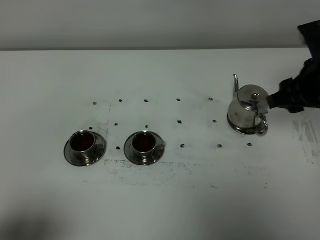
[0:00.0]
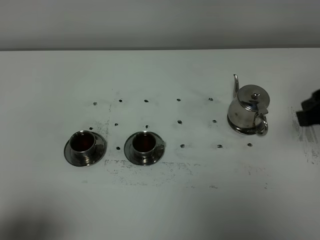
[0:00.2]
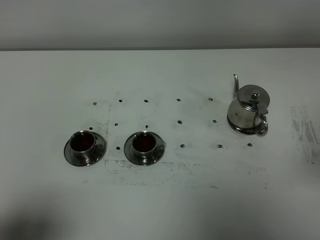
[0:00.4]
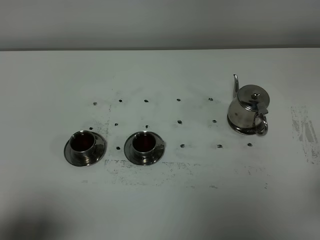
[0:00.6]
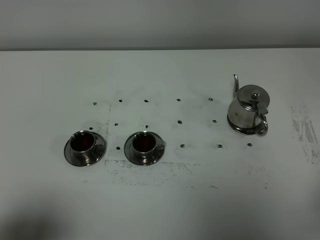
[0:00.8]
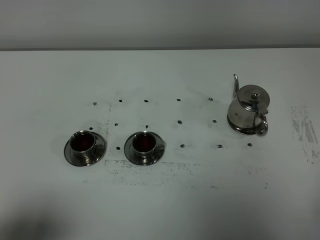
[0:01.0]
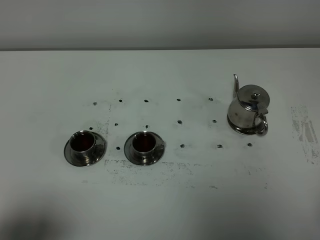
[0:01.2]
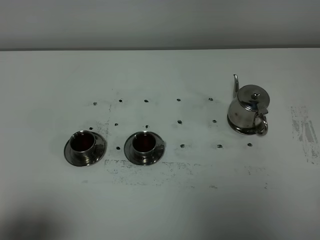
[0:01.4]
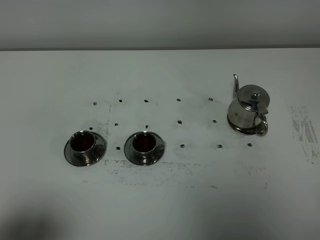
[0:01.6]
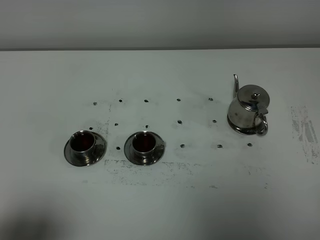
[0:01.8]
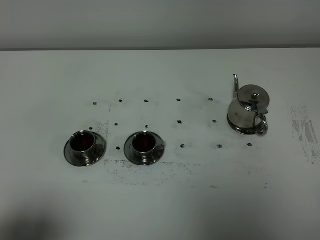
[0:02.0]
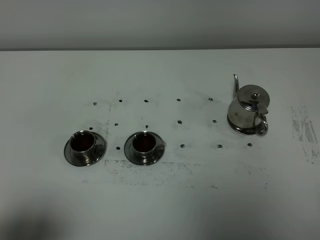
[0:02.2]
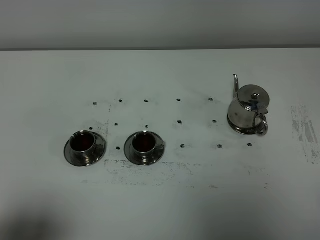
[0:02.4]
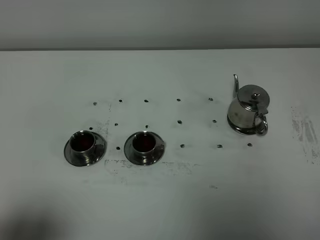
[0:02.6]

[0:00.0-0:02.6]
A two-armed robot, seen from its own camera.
Task of the whole recording: grasp the stainless steel teapot and pour the tea into the two stainless steel teacups one by one, put the stainless steel teapot back in its original place.
0:00.0 to 0:01.2: The right gripper moves backward, roughly 25 cm, and closes.

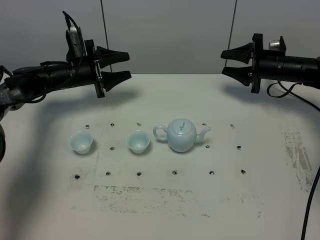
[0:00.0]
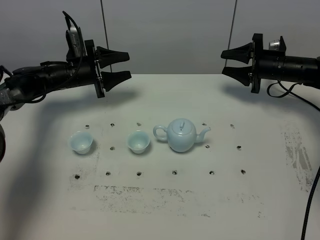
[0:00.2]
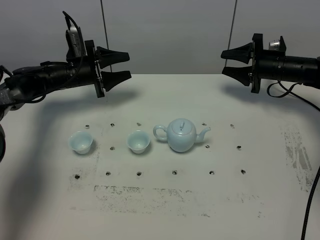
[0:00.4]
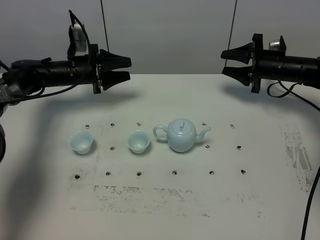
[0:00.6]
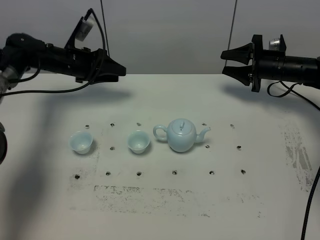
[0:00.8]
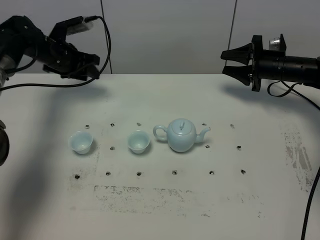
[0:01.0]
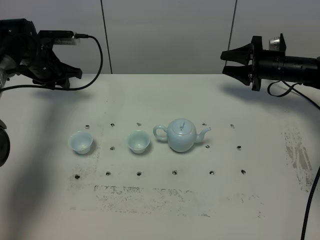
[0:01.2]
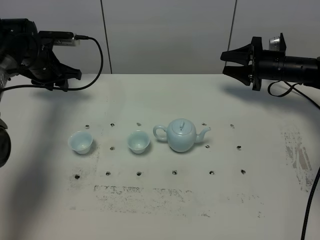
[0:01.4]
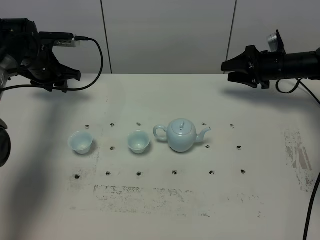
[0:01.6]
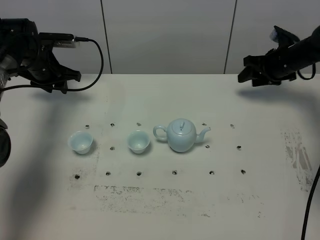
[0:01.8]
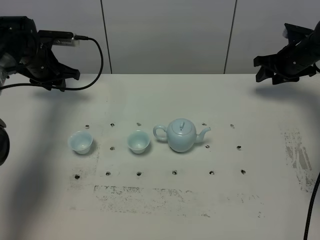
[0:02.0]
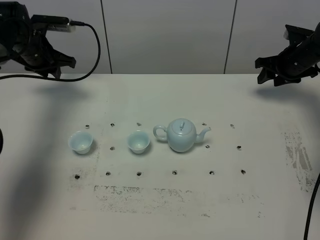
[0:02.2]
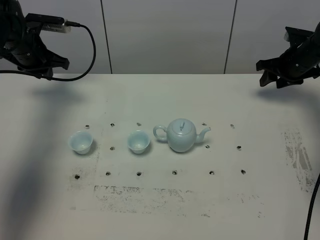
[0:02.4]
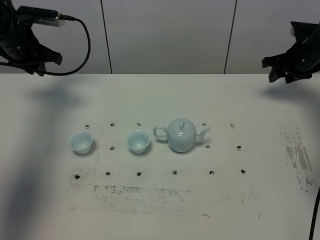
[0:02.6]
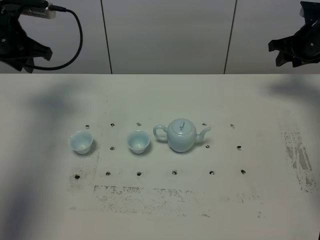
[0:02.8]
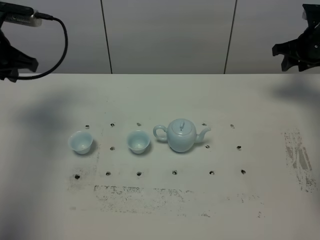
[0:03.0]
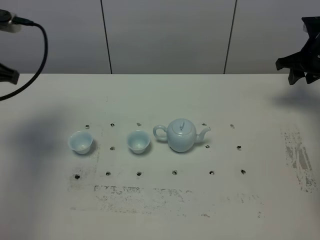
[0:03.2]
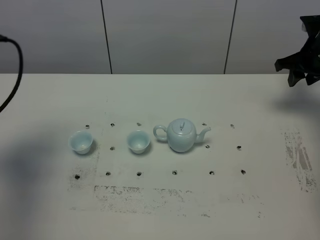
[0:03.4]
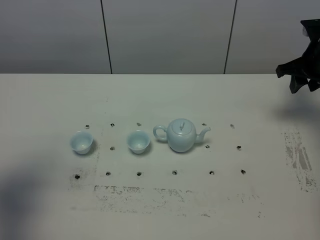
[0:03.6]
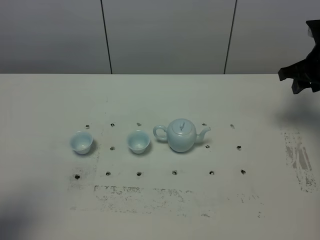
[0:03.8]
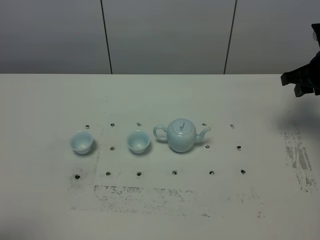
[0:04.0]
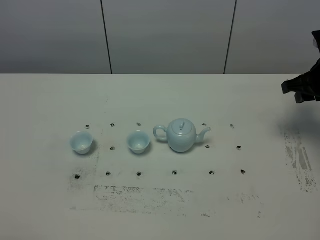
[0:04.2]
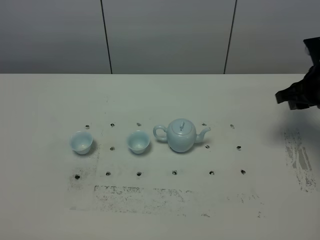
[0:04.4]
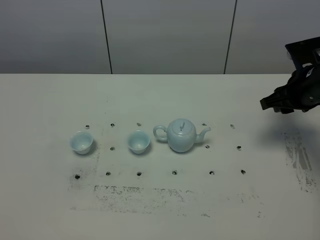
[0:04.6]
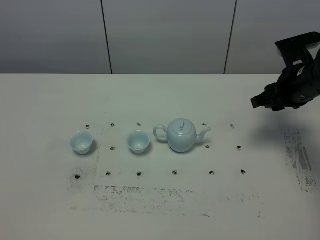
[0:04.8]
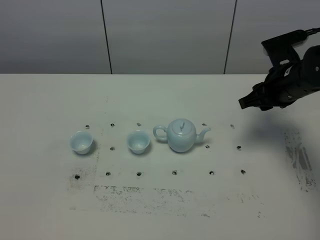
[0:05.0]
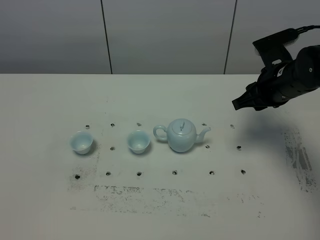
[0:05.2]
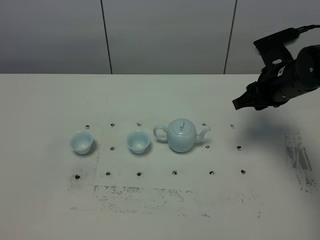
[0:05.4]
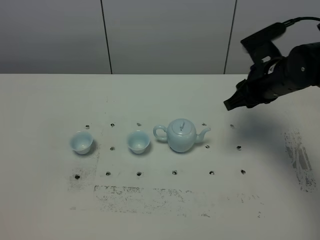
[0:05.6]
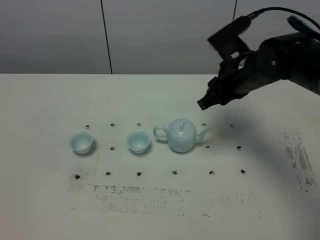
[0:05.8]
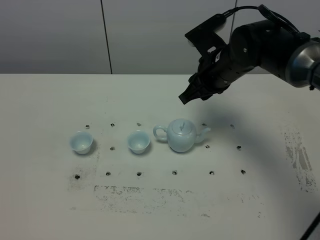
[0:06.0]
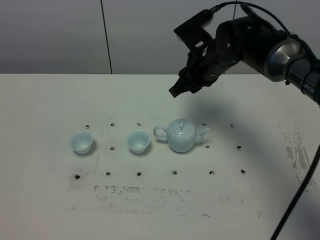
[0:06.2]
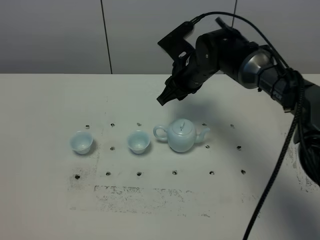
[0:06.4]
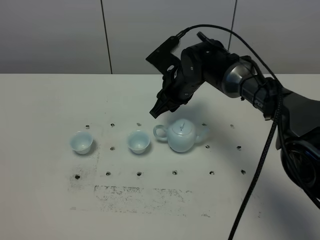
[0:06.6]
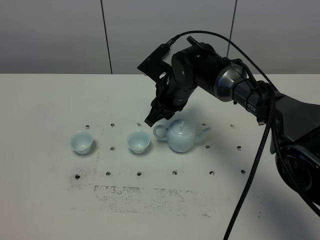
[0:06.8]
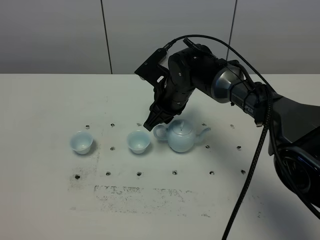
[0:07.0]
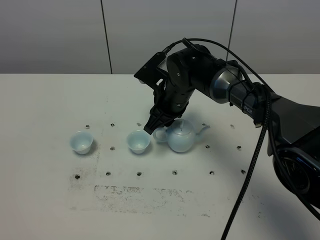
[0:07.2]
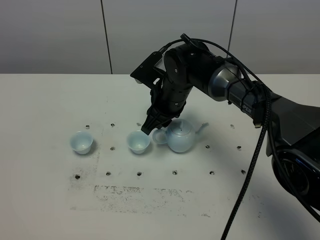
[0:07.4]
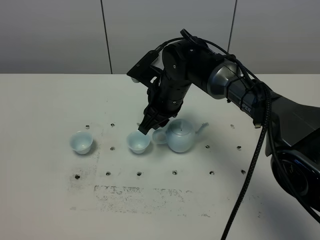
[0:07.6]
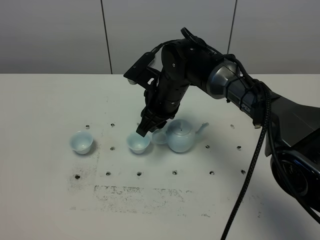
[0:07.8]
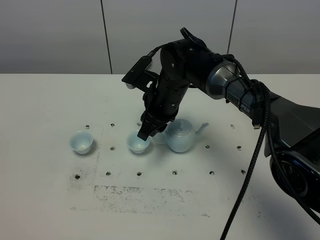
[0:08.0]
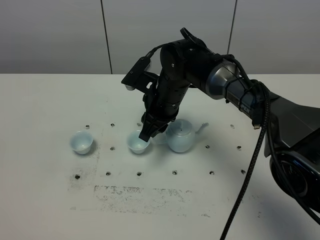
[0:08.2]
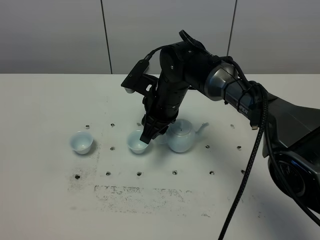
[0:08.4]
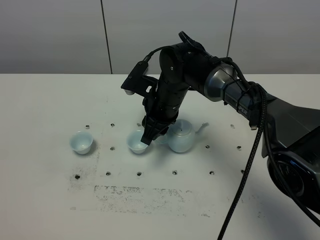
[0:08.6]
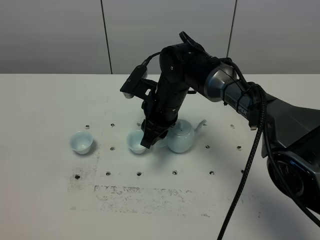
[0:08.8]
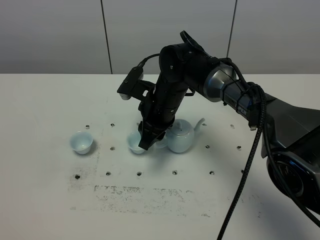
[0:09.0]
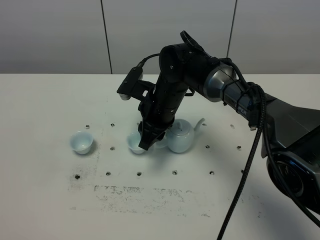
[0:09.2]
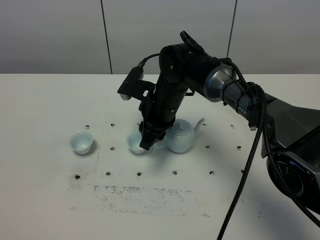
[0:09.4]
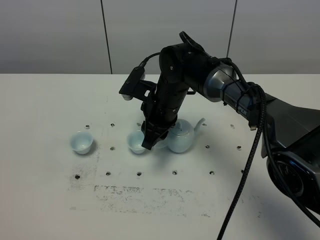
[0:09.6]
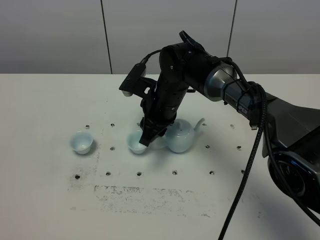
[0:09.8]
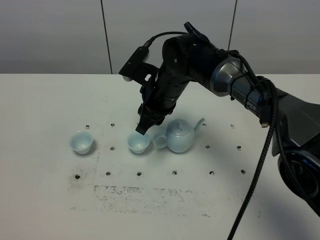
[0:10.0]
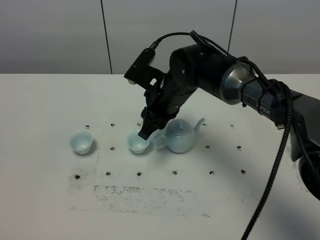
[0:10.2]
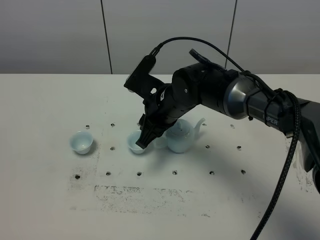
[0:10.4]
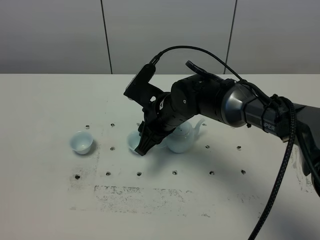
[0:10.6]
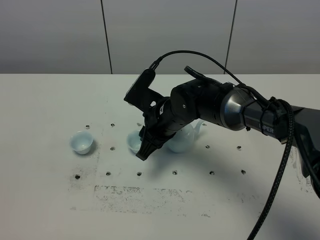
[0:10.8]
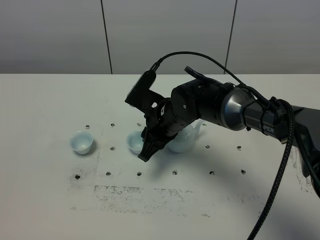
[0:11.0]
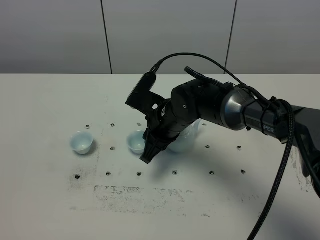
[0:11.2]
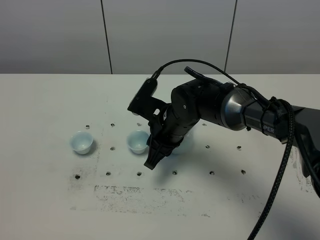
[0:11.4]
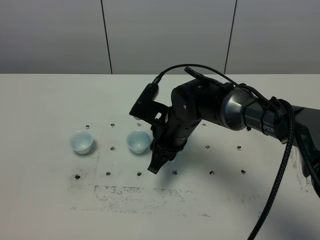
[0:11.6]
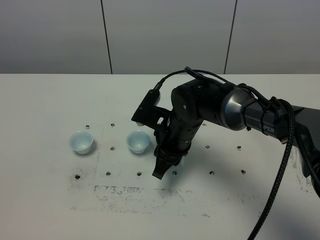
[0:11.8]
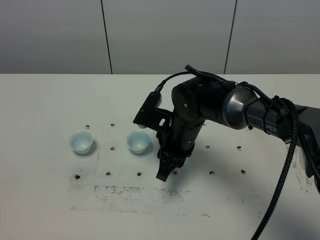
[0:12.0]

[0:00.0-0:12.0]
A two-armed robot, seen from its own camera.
Task of the whole recording: grasp the blue porcelain teapot and pour the tea into the two blue porcelain teacups one by one, put the blue porcelain teapot back in its original place.
0:00.0 to 0:01.6: The left gripper heads to the left, covering approximately 5 cm.
0:01.6 to 0:03.0: The right gripper is displaced upward and to the right by roughly 10 cm, while the left gripper goes some 20 cm upward and backward, and closes its fingers.
0:03.0 to 0:04.4: The left gripper shifts roughly 40 cm backward, while the right gripper moves backward, some 15 cm.
0:04.4 to 0:06.0: The right gripper moves to the left, some 20 cm.
0:06.0 to 0:07.6: The right gripper travels to the left and downward by approximately 10 cm.
0:07.6 to 0:09.0: The grippers move only a little.

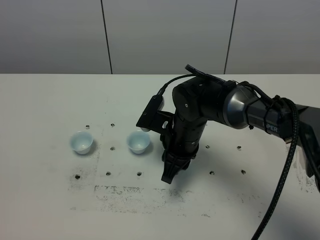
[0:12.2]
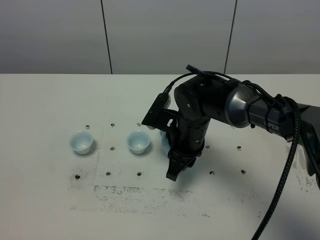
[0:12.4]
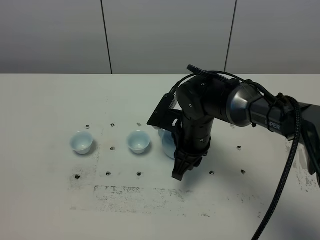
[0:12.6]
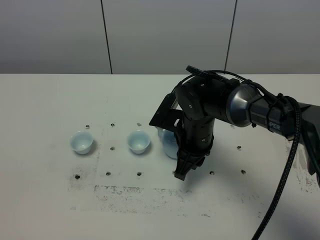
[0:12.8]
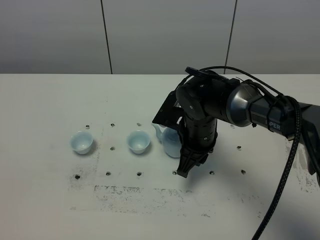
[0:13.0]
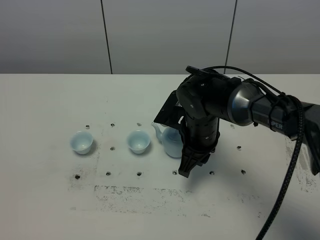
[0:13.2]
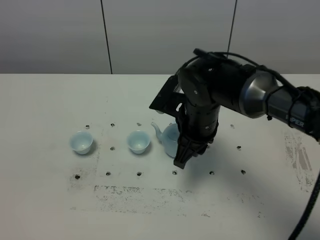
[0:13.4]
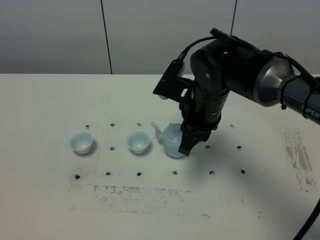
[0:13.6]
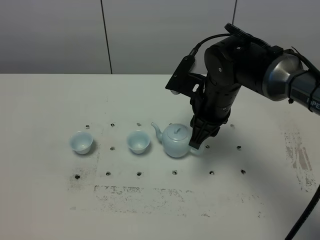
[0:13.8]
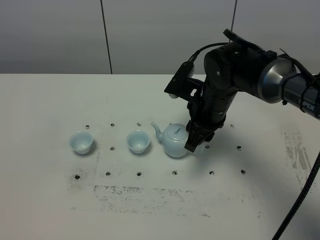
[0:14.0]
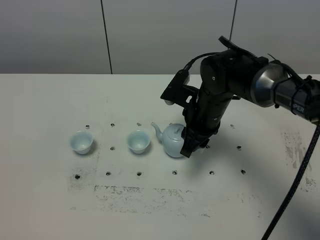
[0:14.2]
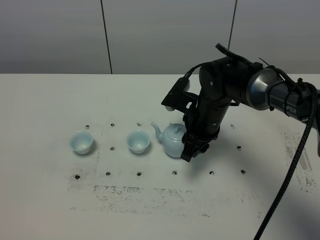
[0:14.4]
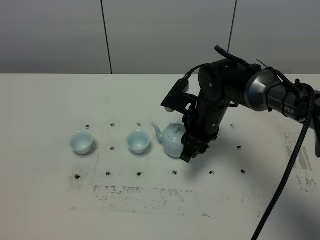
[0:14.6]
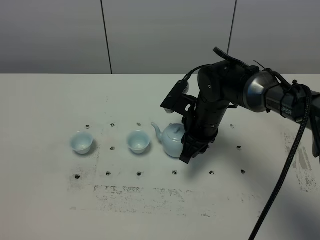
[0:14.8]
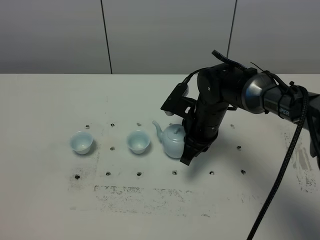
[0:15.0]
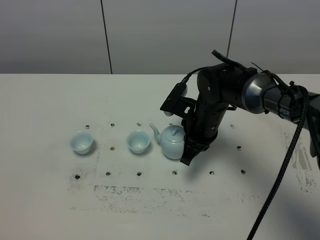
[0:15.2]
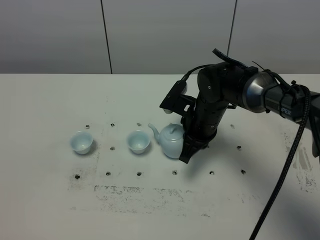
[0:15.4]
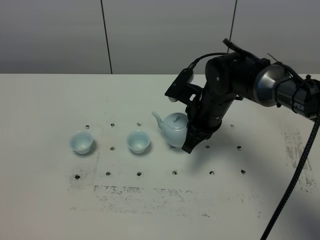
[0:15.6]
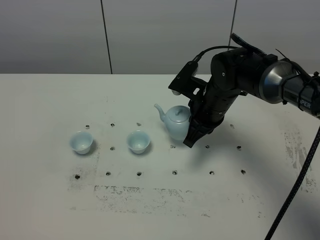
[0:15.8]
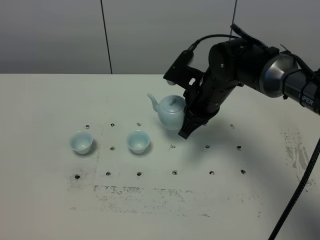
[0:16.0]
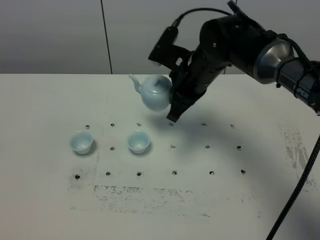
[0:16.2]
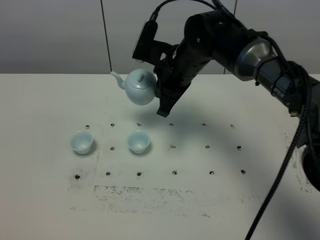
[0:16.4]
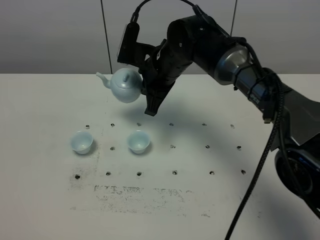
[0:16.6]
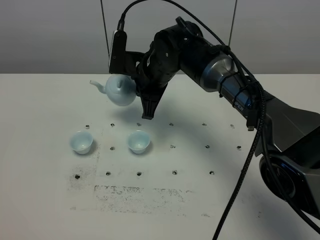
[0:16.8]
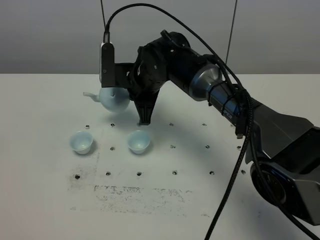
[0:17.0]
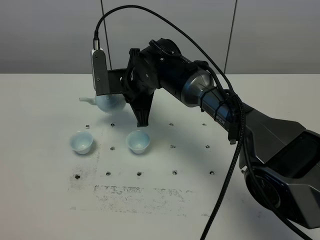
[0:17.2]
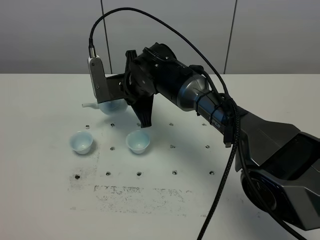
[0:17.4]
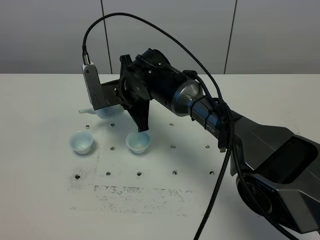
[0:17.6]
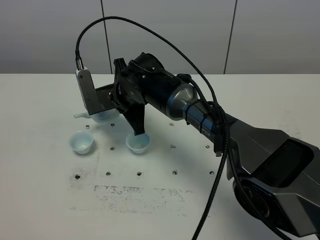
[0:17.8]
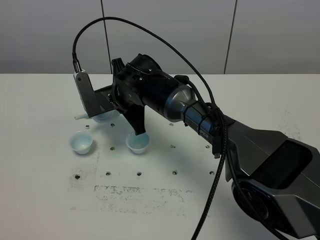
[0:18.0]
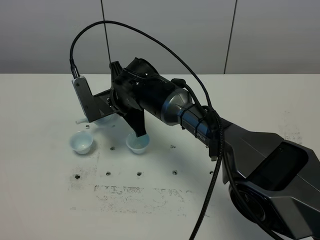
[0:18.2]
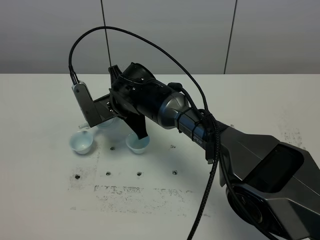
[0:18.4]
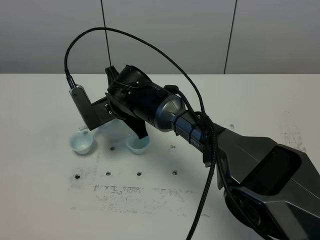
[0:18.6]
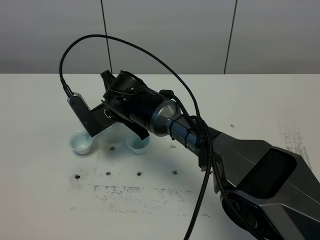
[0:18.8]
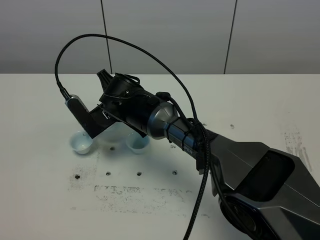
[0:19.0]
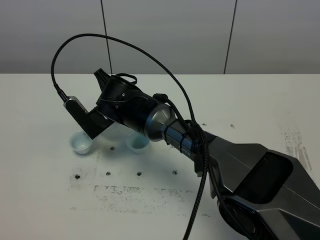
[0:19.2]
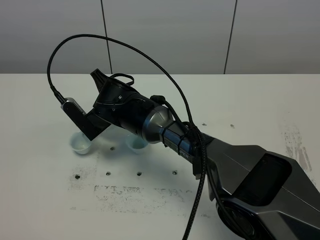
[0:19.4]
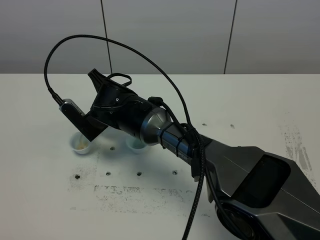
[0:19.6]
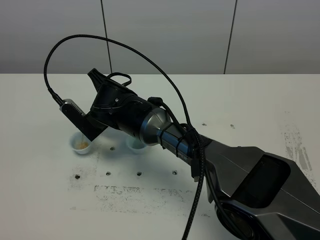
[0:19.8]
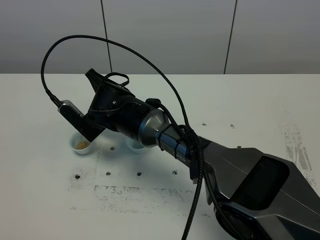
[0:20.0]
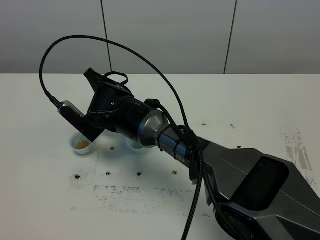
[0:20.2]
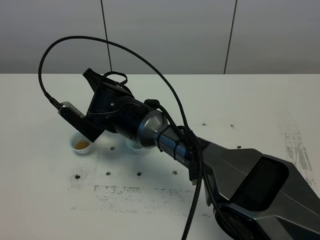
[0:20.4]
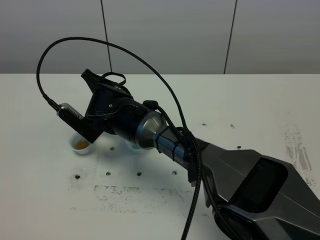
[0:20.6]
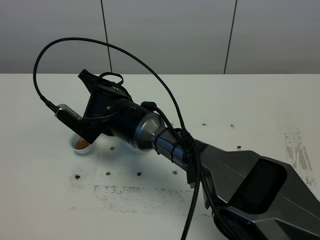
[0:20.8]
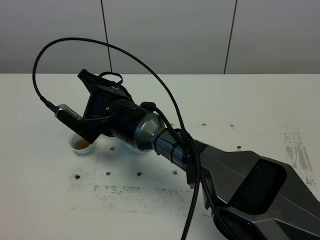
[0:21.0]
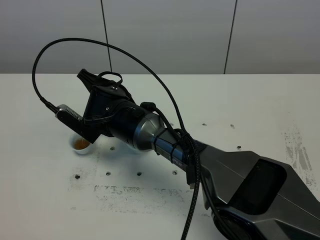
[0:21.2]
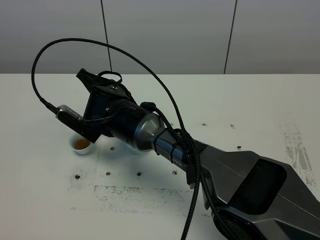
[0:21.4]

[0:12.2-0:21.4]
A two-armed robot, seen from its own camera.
Task of the whole recording: grasp the blue porcelain teapot and pour the tea into the two blue porcelain teacups one by one, put the blue porcelain teapot back in its original place.
Step, 0:12.2 to 0:15.6: Pick up the teapot with the right gripper.
0:12.2 to 0:13.8: The right gripper shifts roughly 10 cm upward and to the right.
0:13.8 to 0:15.2: The right gripper shifts some 5 cm downward, and closes up.
0:15.2 to 0:16.8: The right gripper moves to the left and upward, roughly 10 cm.
0:16.8 to 0:18.4: The right gripper is displaced to the left by roughly 5 cm.
0:19.8 to 0:21.4: The grippers stay close to where they were, moving slightly.
